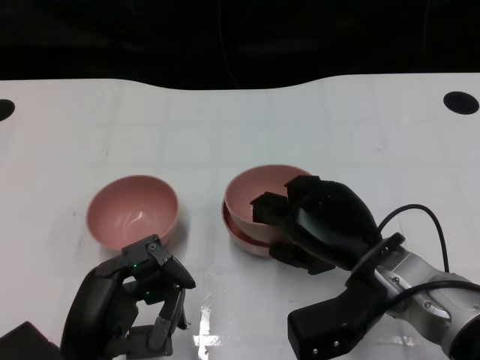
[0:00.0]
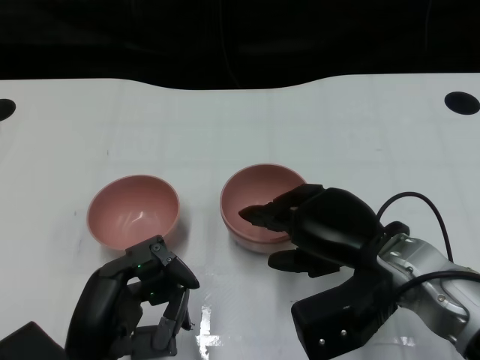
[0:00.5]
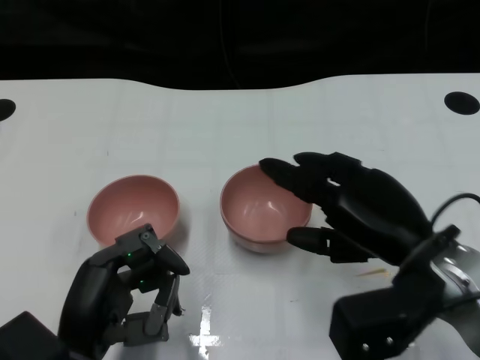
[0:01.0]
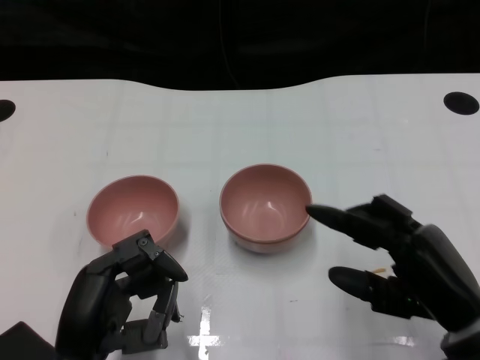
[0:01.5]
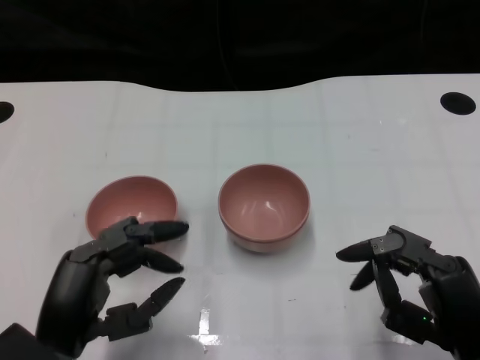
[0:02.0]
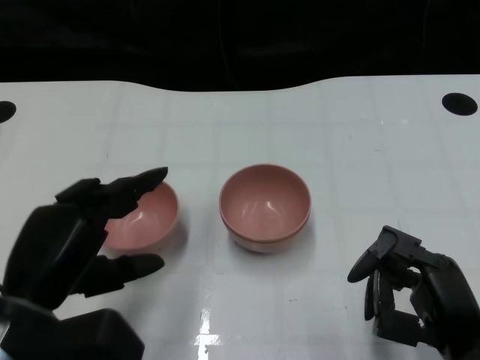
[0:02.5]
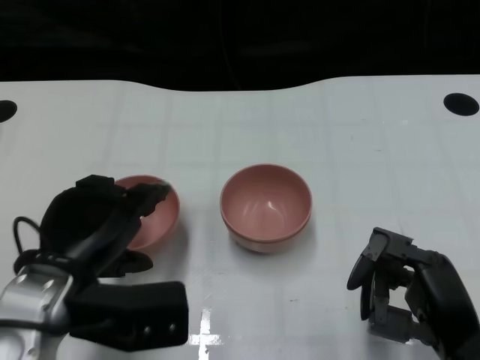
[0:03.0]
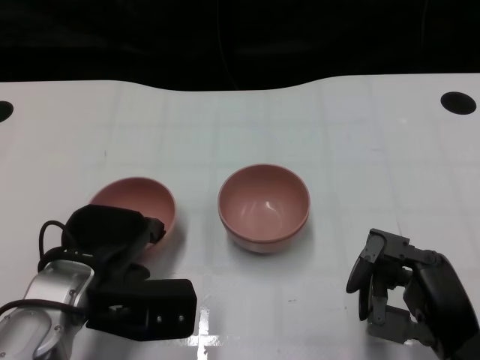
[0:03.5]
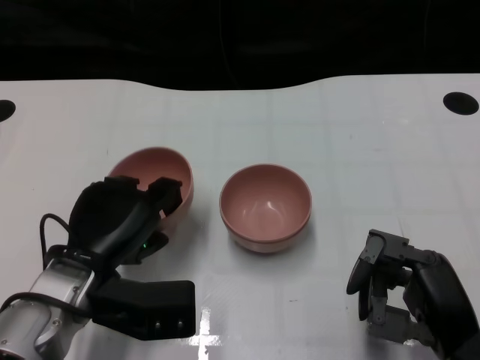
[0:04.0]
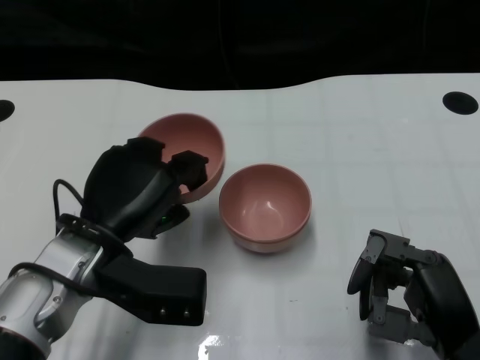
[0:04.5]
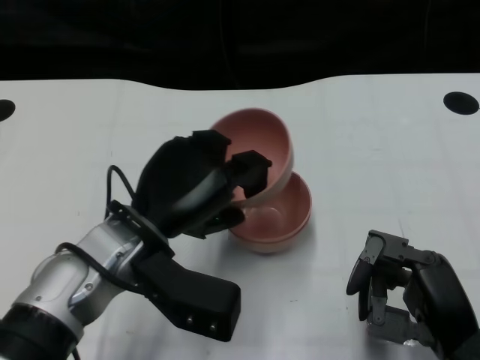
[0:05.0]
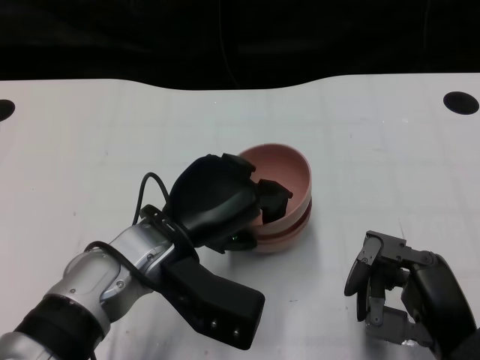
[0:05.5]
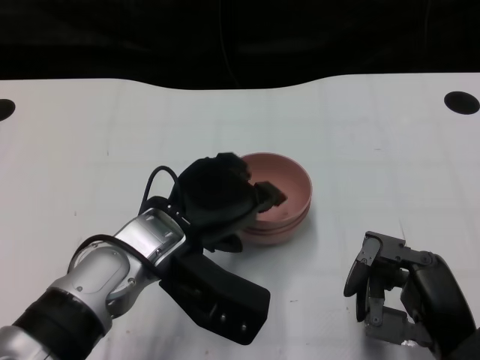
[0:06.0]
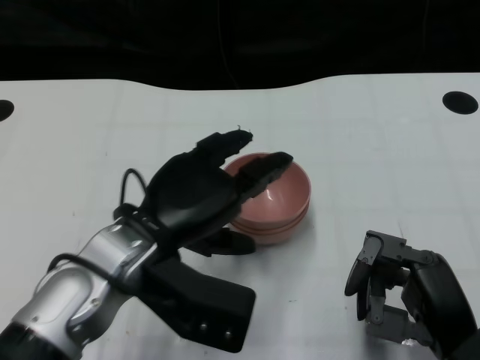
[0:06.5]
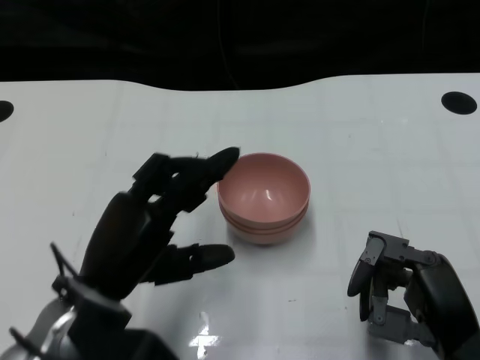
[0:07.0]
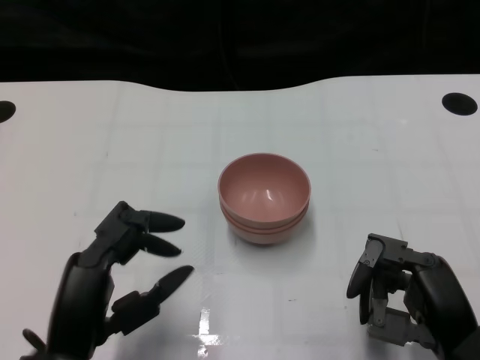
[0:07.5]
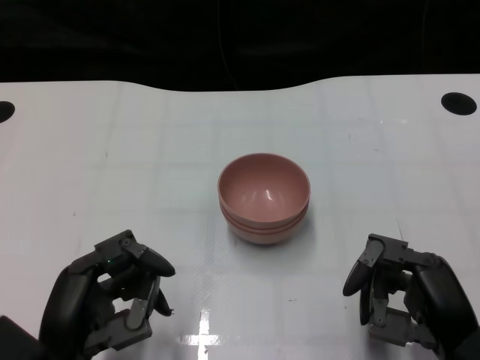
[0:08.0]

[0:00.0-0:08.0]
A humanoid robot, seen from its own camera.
Task of the whole recording: Pick up the bowl on one side of the table and place it on top of the middle bowl, then pick up the bowl on the other side of the table and place it on top of the middle bowls.
Step, 0:01.5 to 0:03.5: Grasp the bowl on the left with the left gripper.
Step, 0:04.0 to 0:06.5: Place the bowl on the left onto the bowl in the middle with left gripper.
0:00.0 to 0:02.0: The right hand heads backward and to the right, covering about 15 cm.
0:02.0 to 0:04.0: The left hand shifts some 10 cm forward.
0:04.0 to 0:06.0: The left hand travels to the right by roughly 10 cm.
0:06.0 to 0:08.0: The left hand goes some 15 cm backward, to the left and downward.

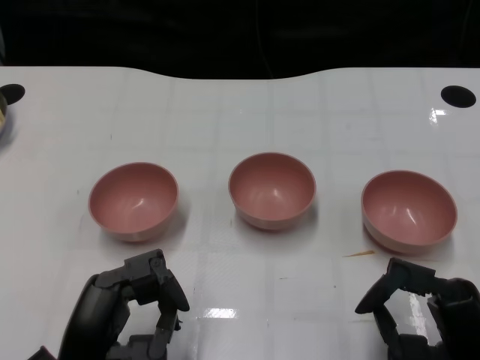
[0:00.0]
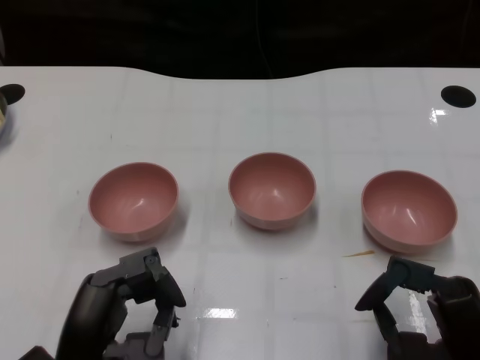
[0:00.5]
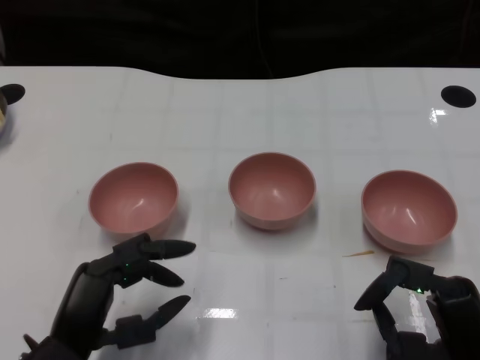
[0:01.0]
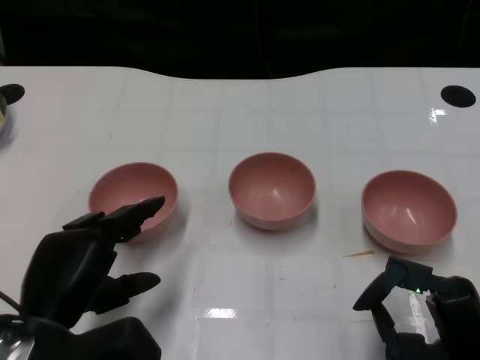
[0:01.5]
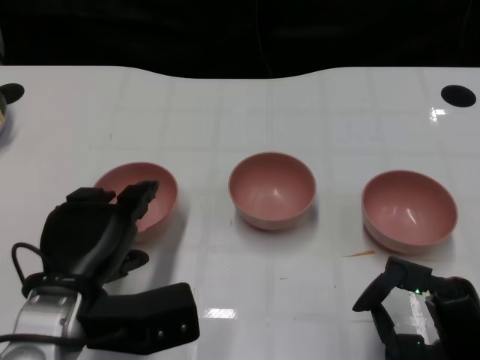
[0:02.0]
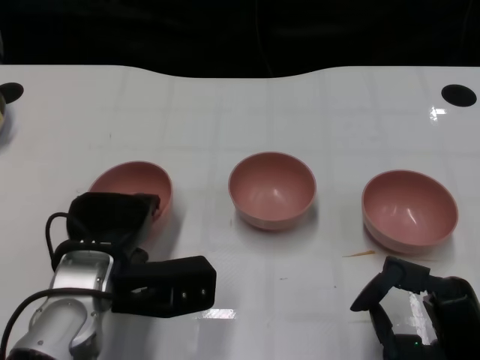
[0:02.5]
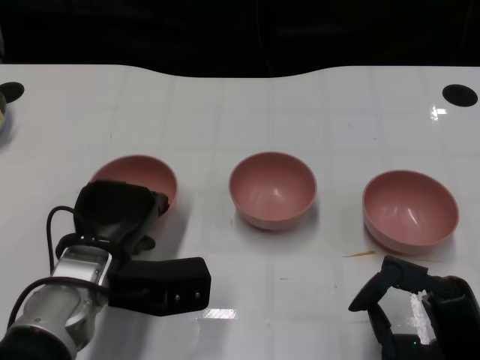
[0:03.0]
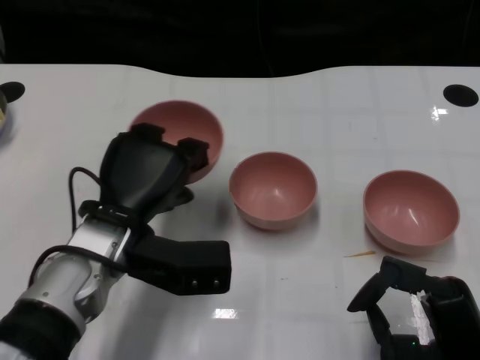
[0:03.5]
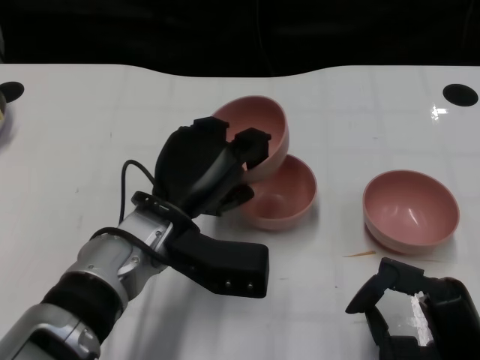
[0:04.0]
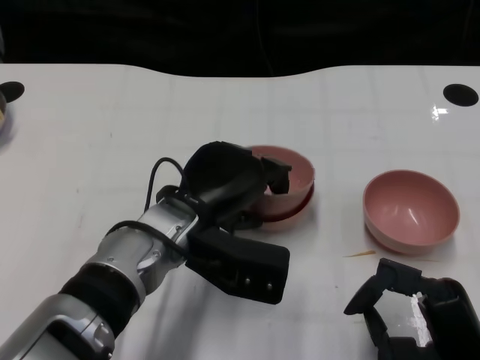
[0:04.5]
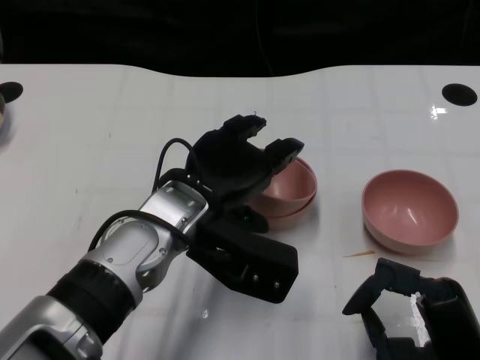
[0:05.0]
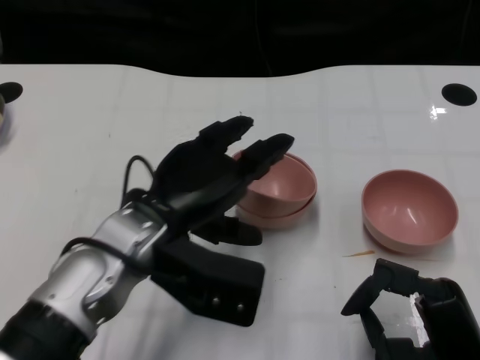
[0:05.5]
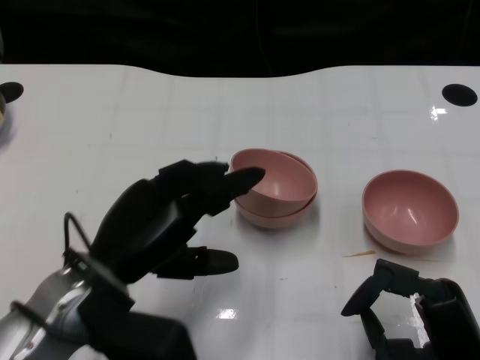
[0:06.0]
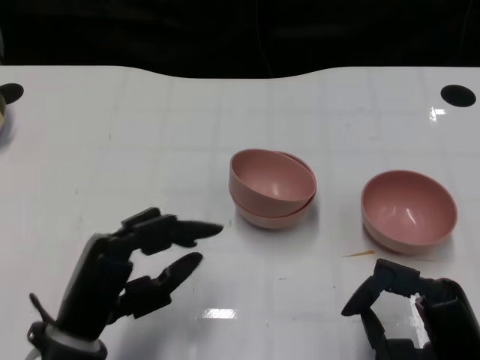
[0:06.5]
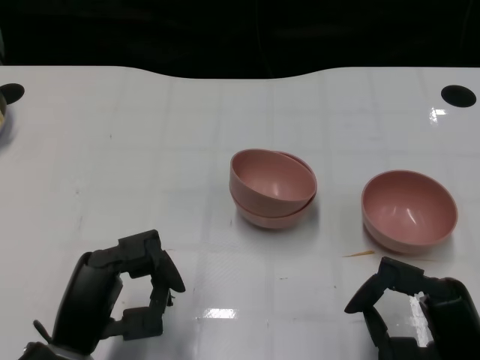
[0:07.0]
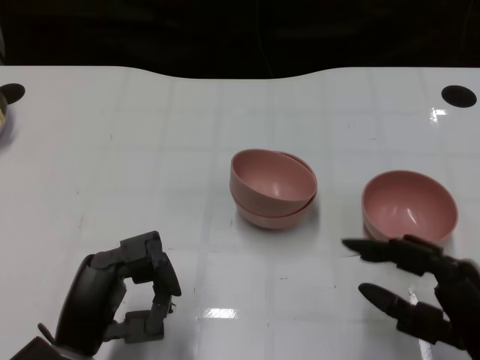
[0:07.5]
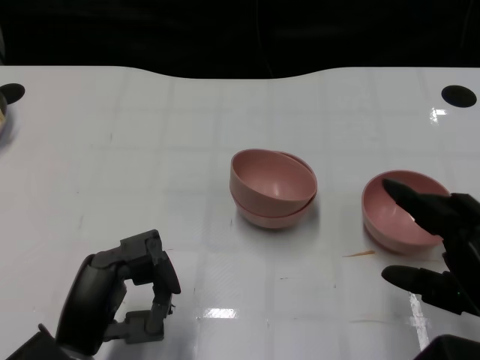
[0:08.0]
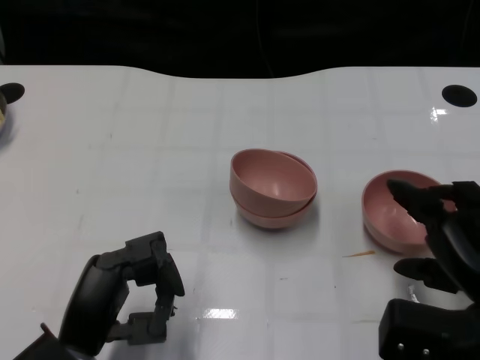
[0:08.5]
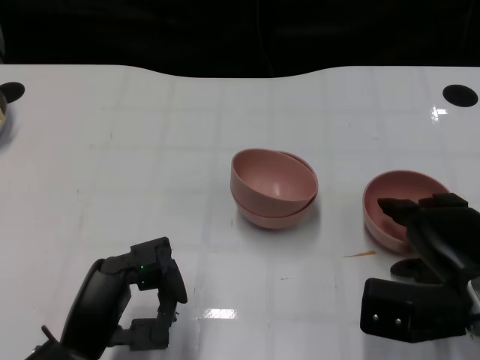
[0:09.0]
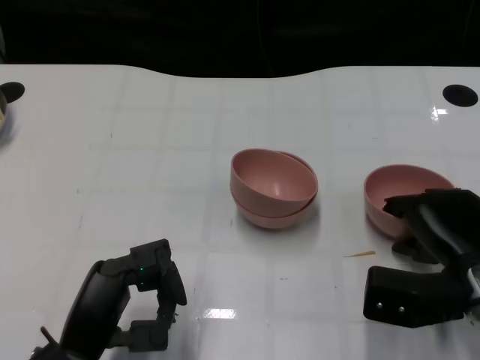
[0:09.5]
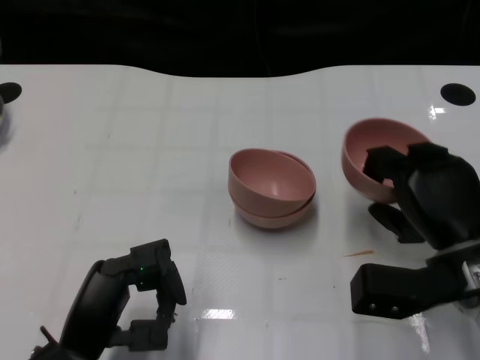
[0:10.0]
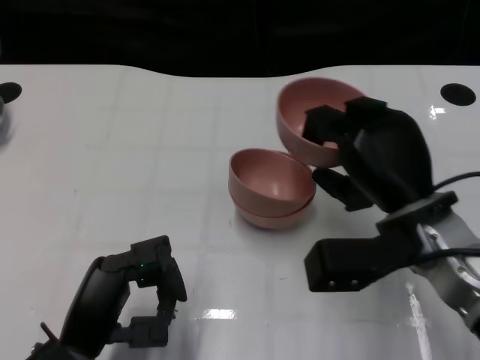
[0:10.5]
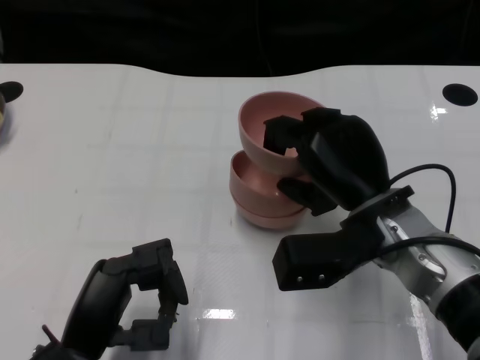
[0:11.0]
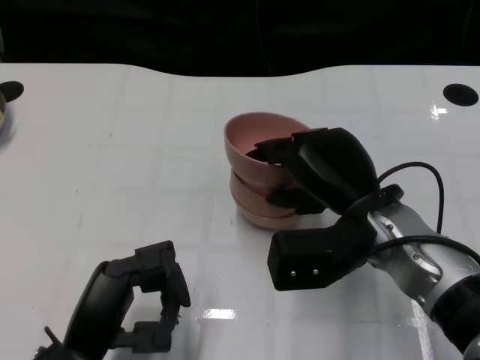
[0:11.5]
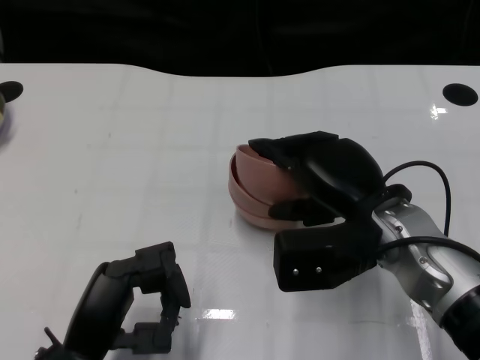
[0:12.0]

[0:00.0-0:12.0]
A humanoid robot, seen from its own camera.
Task of the whole recording: Pick up the bowl on one side of the table and place it on top of the middle bowl, then pick up the bowl on the other side of the table and place it on top of the middle bowls.
Step, 0:01.0 to 0:02.5: Grasp the bowl on the left with the left gripper.
Step, 0:03.0 to 0:05.5: Place the bowl on the left onto the bowl in the middle with left gripper.
Step, 0:06.0 to 0:09.5: Grasp the bowl on the right with the right gripper.
0:02.0 to 0:04.0: The left hand is displaced to the right and forward by roughly 10 cm.
0:04.0 to 0:06.0: The left hand shifts some 10 cm to the left and backward.
0:06.0 to 0:08.0: The left hand is displaced downward and backward by roughly 10 cm. The right hand heads upward, covering approximately 5 cm.
0:08.0 to 0:10.0: The right hand is displaced forward by roughly 10 cm.
0:10.0 to 0:12.0: The right hand is displaced to the left by roughly 10 cm.

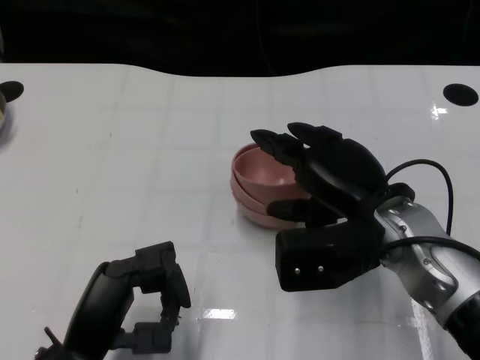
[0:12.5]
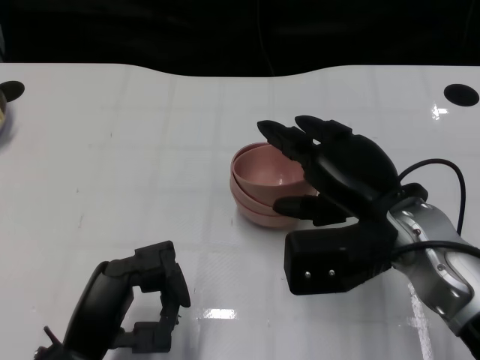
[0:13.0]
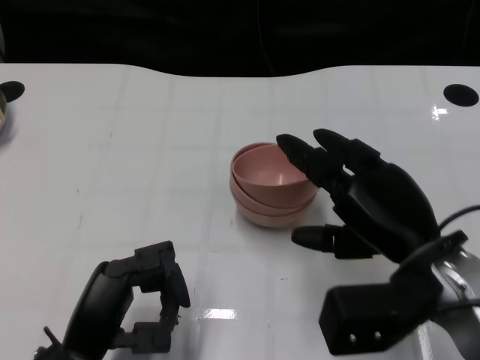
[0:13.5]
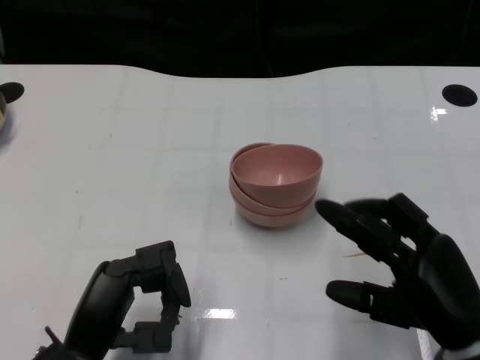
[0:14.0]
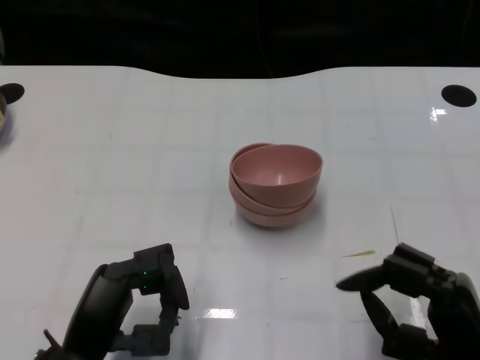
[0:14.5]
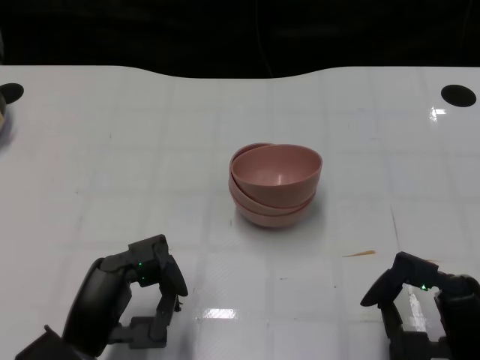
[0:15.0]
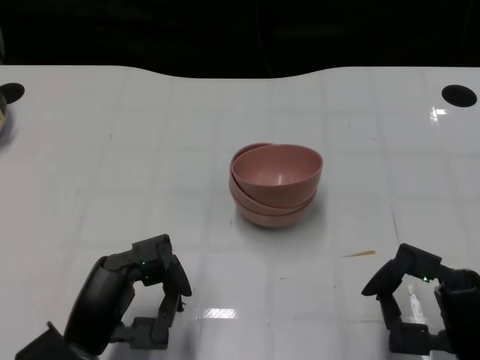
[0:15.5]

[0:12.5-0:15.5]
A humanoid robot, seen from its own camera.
Task of the whole recording: Pick up the bowl on one side of the table and place it on top of the middle bowl, then pick up the bowl on the other side of the table and place it on top of the middle bowls.
0:12.5 to 0:14.0: The right hand heads backward, to the right and downward, covering some 15 cm.
